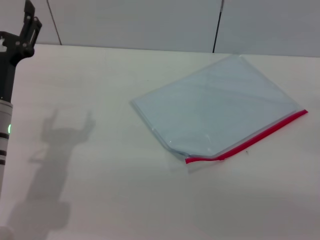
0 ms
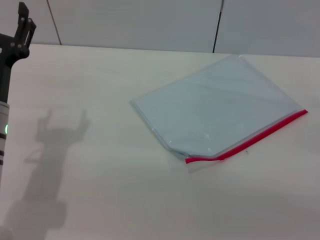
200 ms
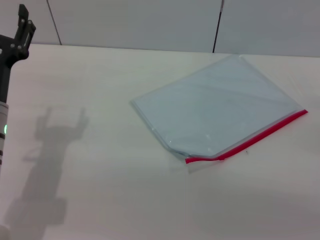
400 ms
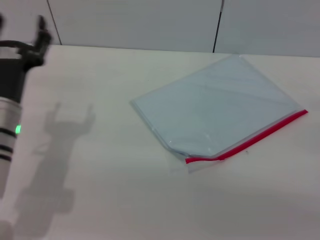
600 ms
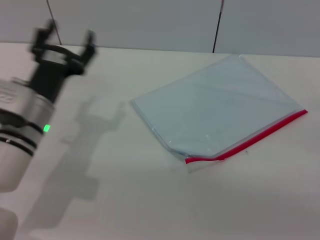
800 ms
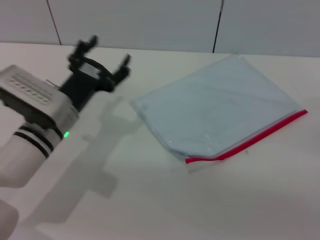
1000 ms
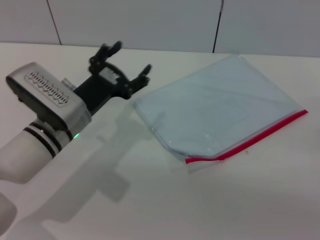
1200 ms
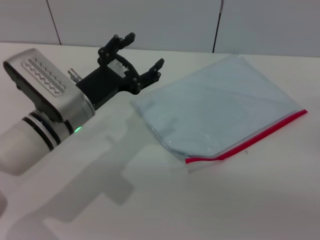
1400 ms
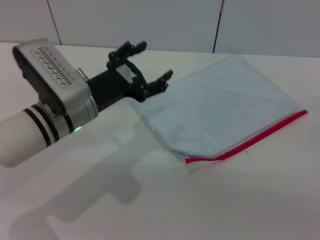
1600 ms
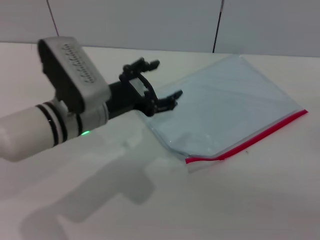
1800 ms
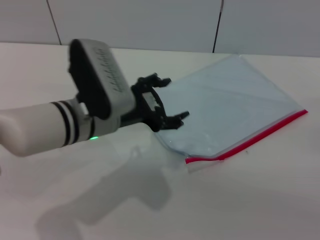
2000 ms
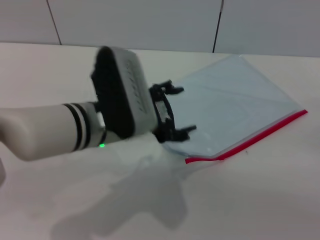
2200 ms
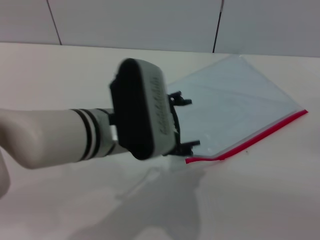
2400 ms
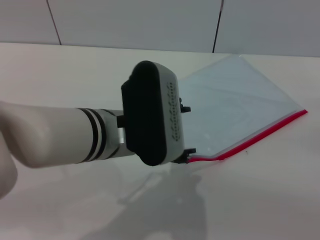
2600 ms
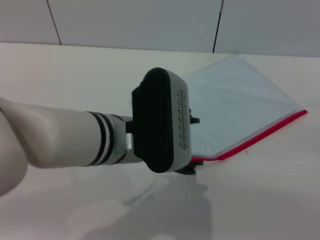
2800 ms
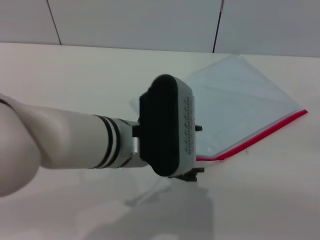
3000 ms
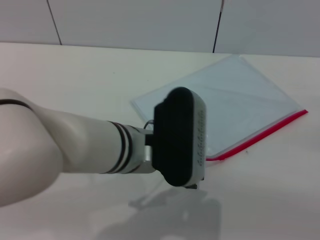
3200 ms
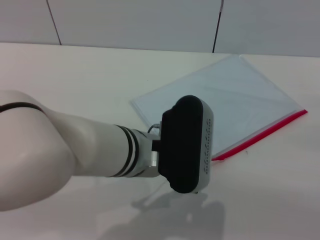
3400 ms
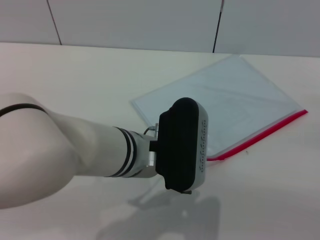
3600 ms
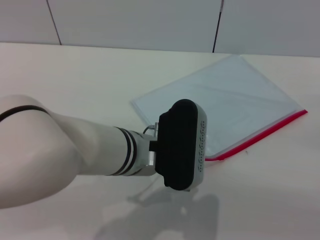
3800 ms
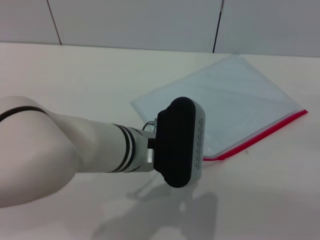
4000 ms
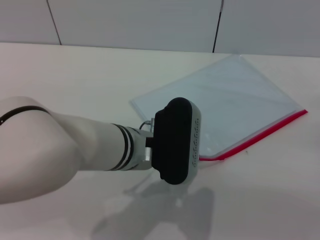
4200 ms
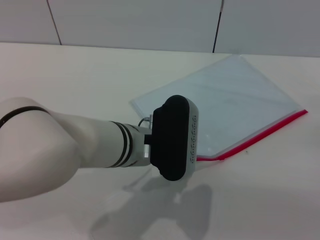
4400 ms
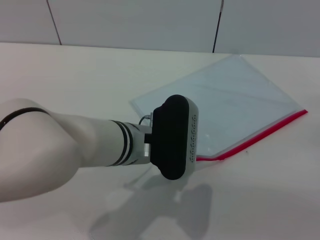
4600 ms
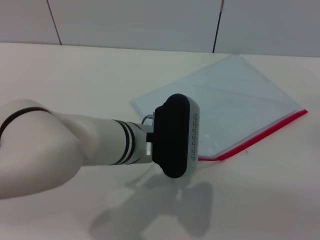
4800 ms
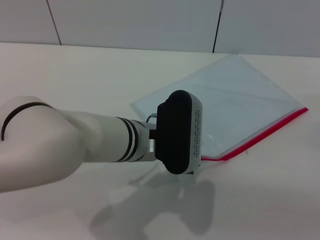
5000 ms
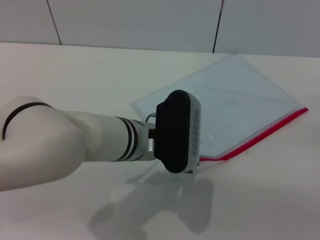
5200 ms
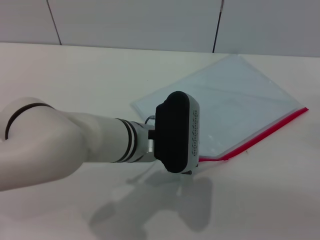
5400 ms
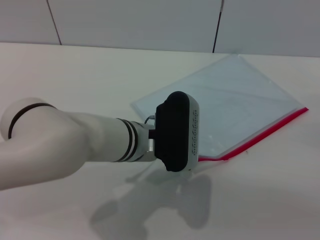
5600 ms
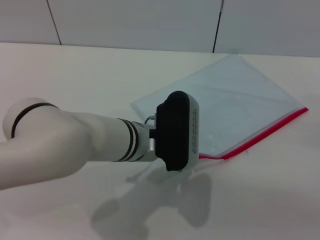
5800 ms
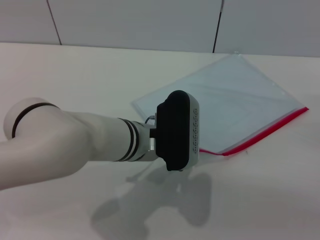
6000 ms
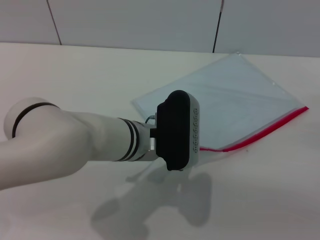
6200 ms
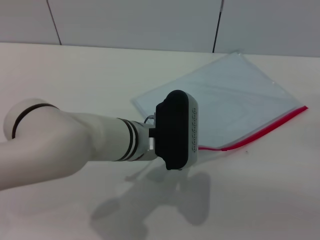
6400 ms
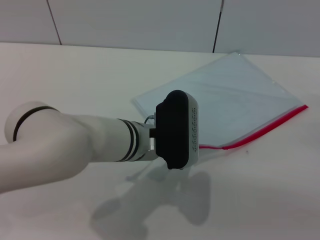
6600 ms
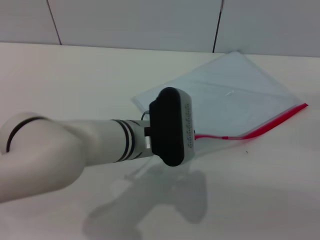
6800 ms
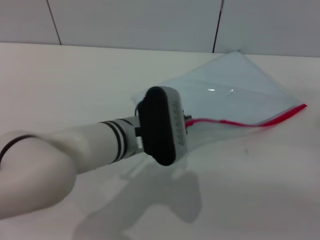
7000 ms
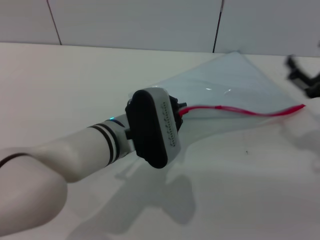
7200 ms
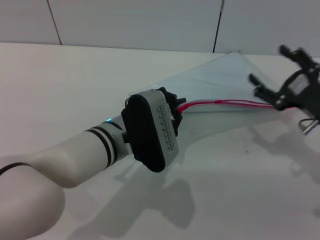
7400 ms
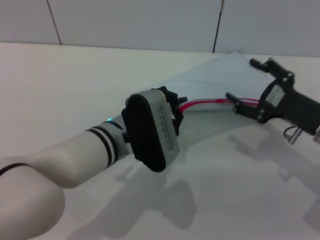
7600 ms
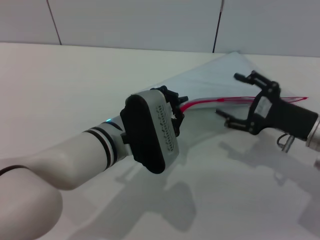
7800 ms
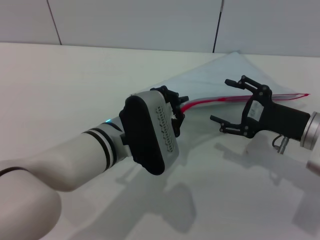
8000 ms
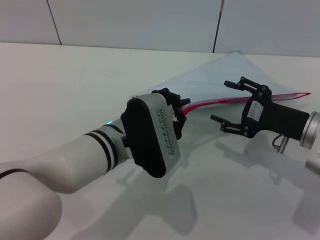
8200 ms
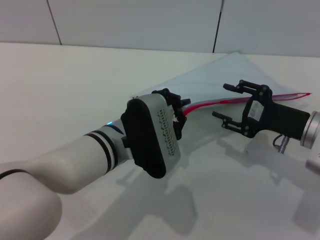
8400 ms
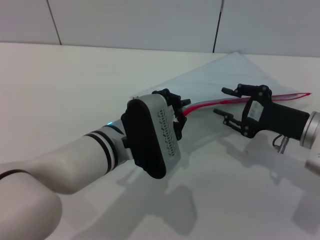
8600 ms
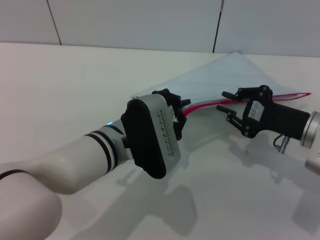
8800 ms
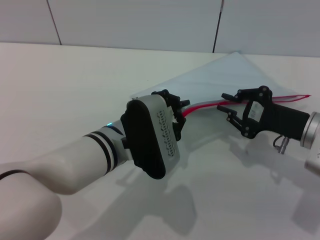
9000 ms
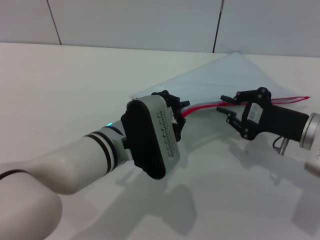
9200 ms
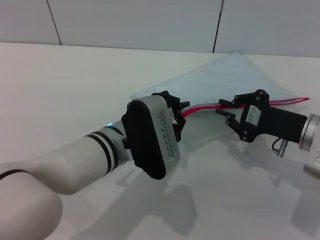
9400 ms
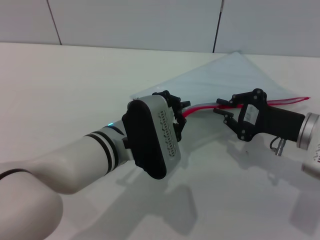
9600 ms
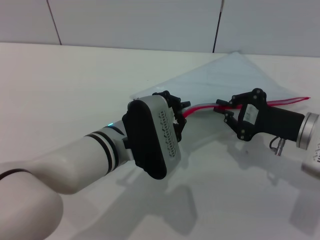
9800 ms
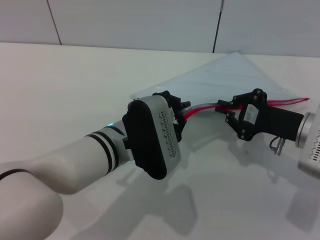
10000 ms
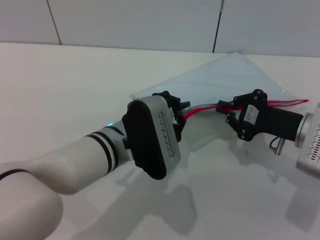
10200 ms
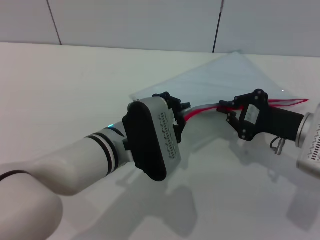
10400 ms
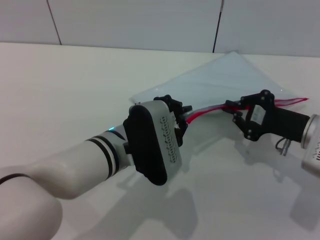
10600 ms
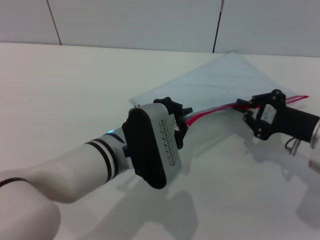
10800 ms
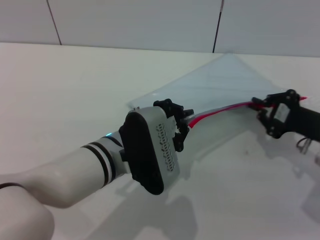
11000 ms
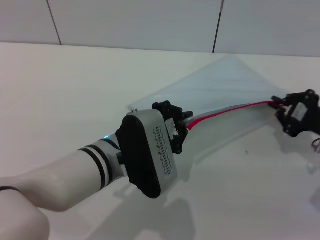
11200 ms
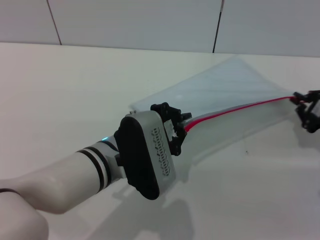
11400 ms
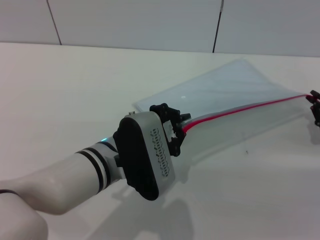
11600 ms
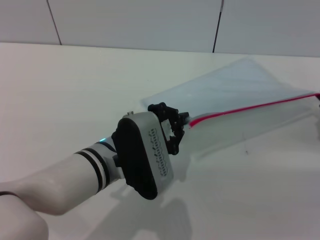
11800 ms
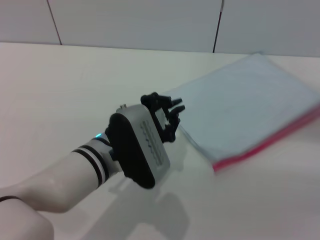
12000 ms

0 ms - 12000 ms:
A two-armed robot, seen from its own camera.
Step, 0 ms - 7400 ms: Pick up the transparent plastic bag with the left gripper.
Step, 7600 ms - 11600 ms: Pulling up the zipper on the transparent plastic bag with the right gripper to close it.
0 ms - 1600 ms: The left gripper heads to the right, covering roughly 5 cm.
1600 ms - 3000 ms: The left gripper goes about 10 cm to the right, backward and upward.
3000 ms - 4400 ms: There are only small adjustments of the grippers.
4400 ms - 6000 ms: The left gripper closes its fingers.
6000 ms - 7600 ms: The right gripper goes about 10 cm to the left. The left gripper closes up.
7600 ms - 9000 ms: The right gripper closes up.
9000 ms - 10400 ms: The two grippers keep their place.
10400 ms - 12000 ms: The right gripper is displaced to the right by approximately 10 cm.

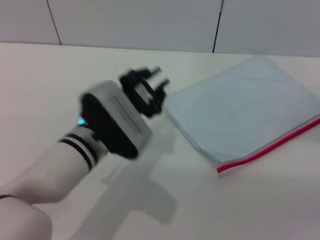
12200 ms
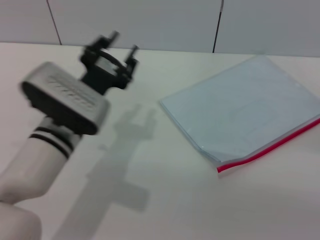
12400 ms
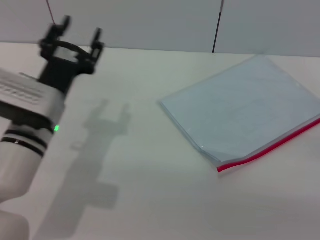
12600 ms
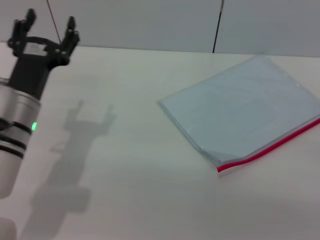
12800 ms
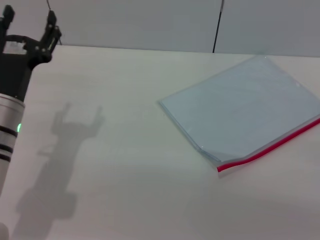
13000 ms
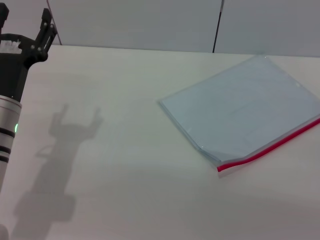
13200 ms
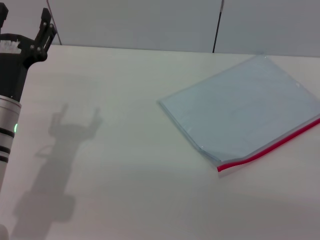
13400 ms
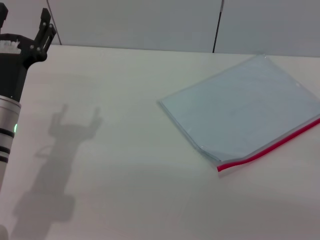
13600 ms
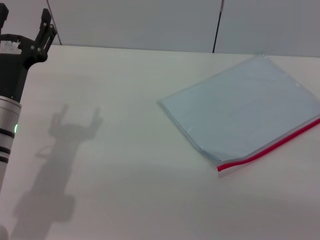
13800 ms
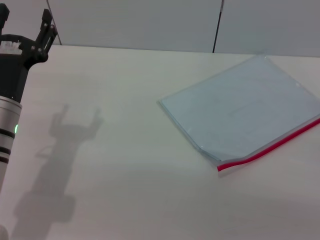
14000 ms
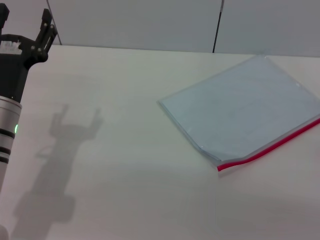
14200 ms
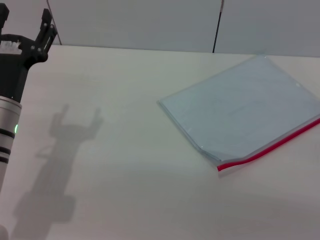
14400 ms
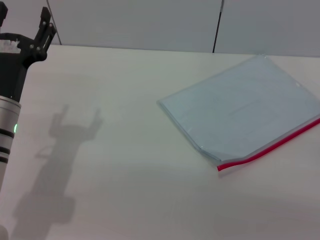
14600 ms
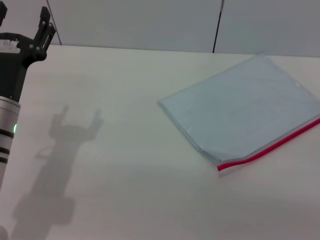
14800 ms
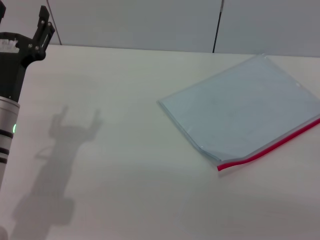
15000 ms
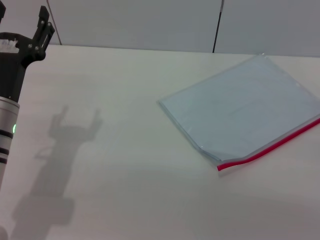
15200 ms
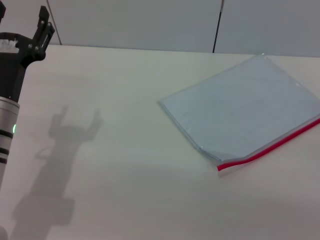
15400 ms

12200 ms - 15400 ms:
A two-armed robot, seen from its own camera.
12200 ms - 13800 ms: The left gripper shifts about 10 cm to the left, and opens; the right gripper heads backward, covering approximately 5 cm, and opens.
13800 ms - 15400 ms: Neither gripper changes place.
